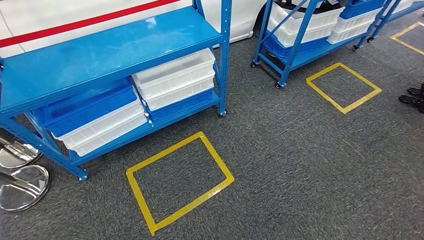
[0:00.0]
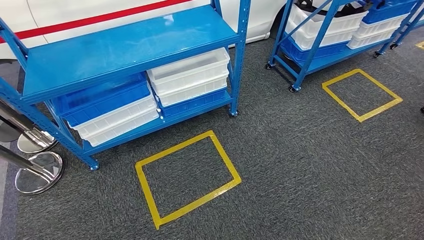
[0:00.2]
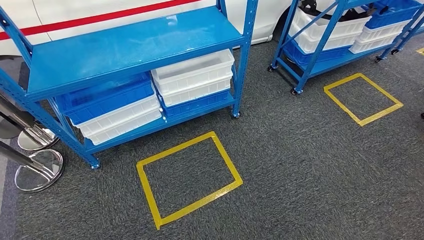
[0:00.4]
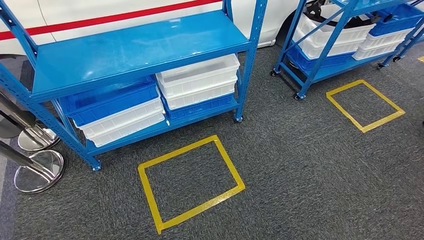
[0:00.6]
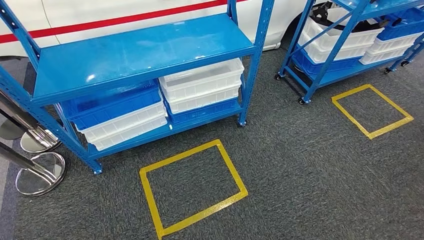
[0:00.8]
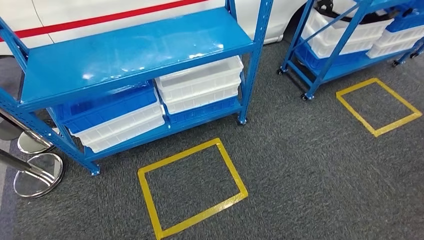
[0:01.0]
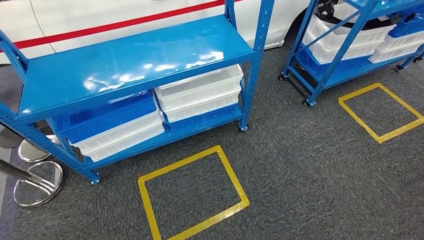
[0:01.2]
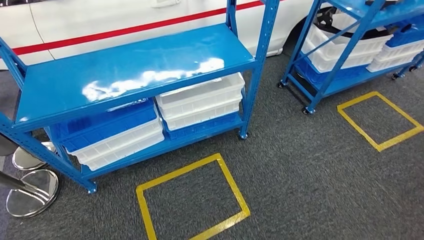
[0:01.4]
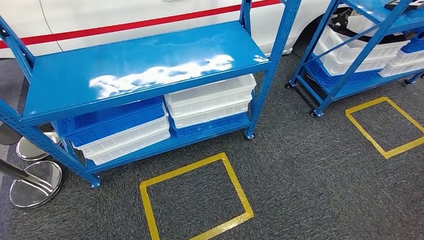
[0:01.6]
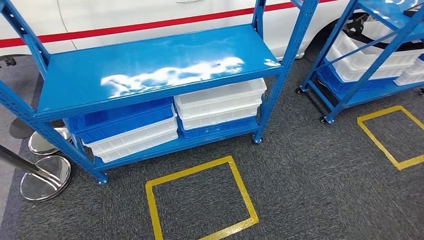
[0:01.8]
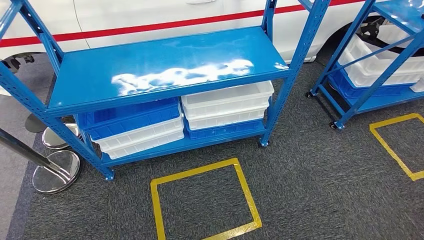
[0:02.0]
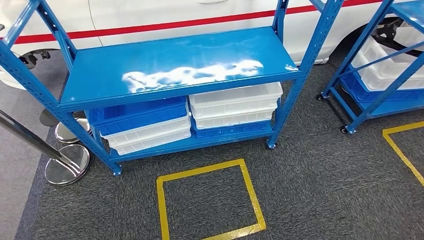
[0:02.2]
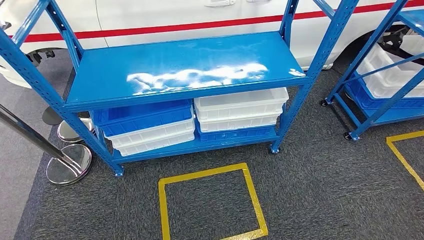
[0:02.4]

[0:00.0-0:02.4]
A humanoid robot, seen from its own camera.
Step, 0:00.0 to 0:02.4: Return to the initial position at the shelf.
